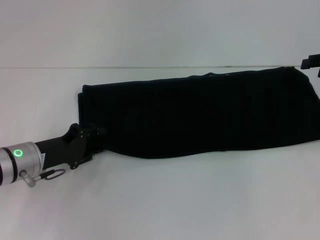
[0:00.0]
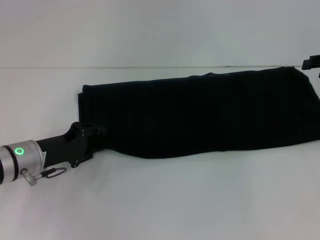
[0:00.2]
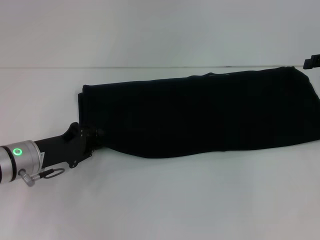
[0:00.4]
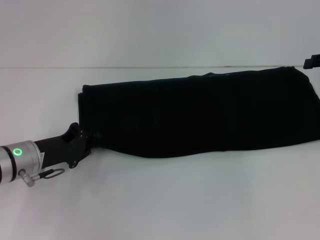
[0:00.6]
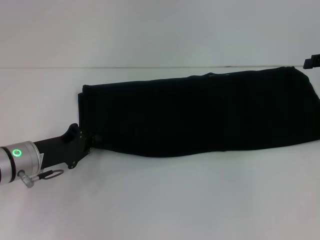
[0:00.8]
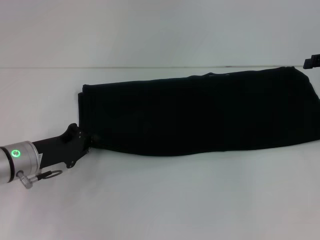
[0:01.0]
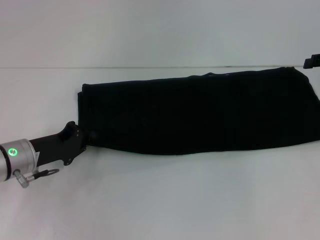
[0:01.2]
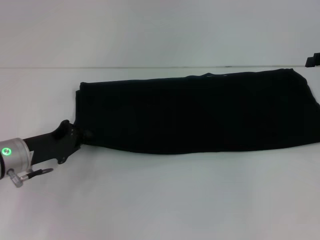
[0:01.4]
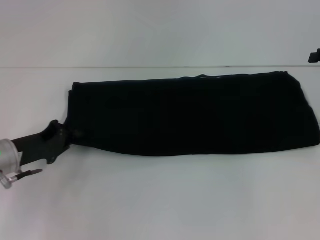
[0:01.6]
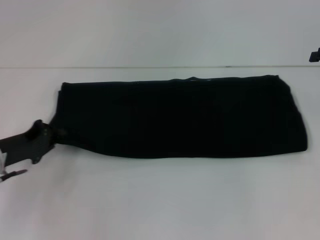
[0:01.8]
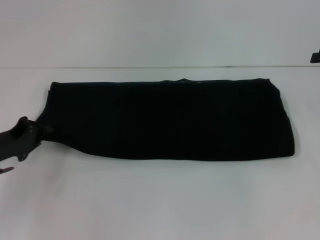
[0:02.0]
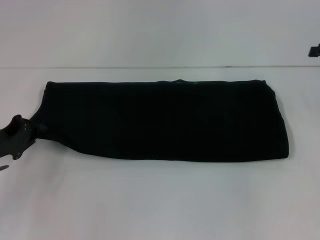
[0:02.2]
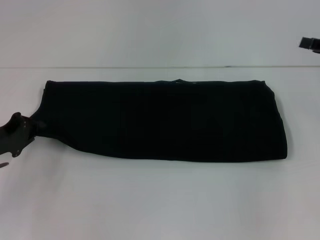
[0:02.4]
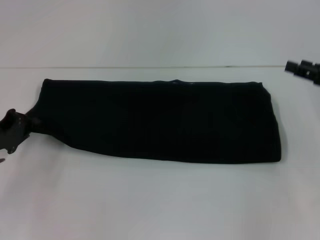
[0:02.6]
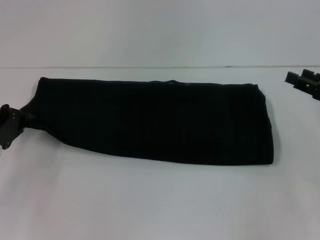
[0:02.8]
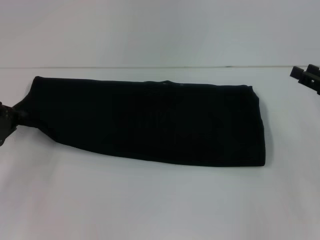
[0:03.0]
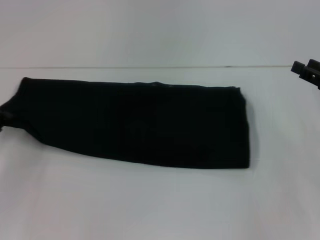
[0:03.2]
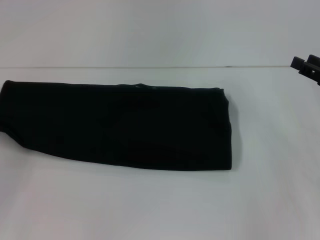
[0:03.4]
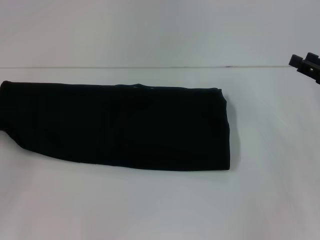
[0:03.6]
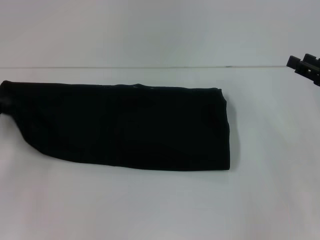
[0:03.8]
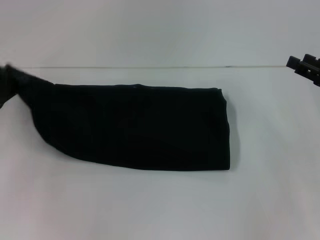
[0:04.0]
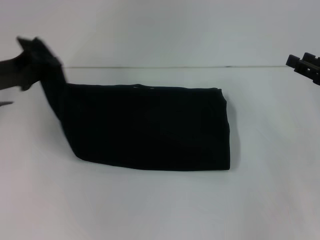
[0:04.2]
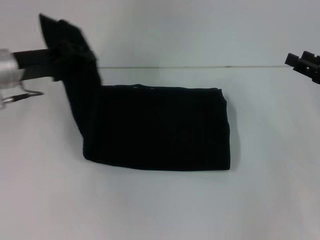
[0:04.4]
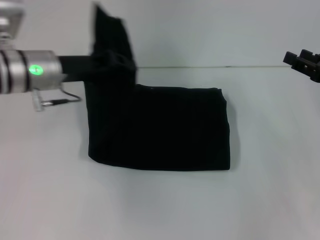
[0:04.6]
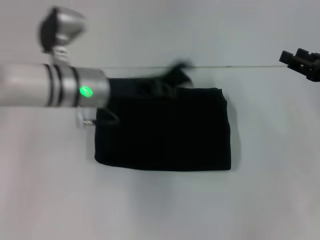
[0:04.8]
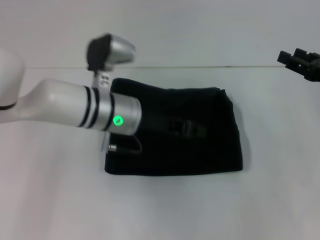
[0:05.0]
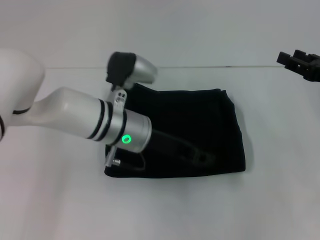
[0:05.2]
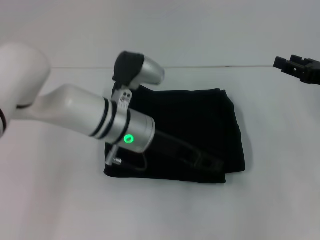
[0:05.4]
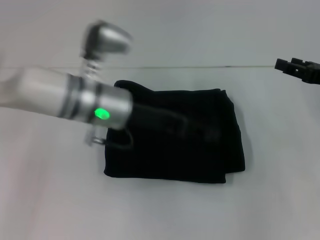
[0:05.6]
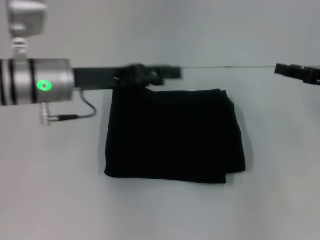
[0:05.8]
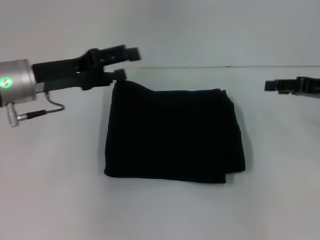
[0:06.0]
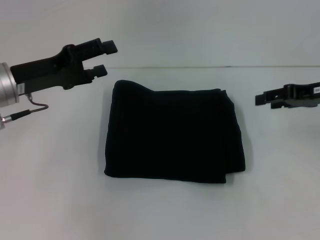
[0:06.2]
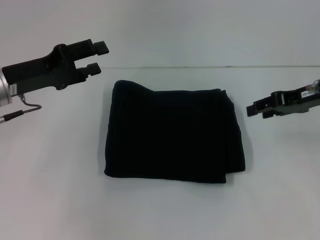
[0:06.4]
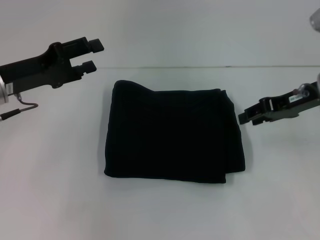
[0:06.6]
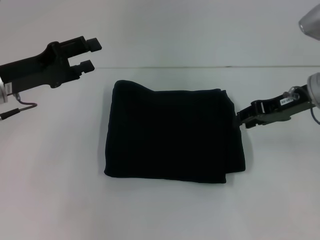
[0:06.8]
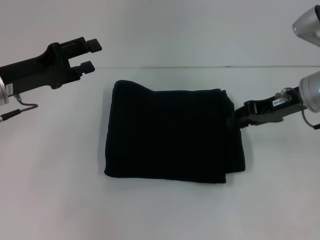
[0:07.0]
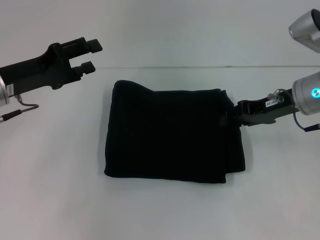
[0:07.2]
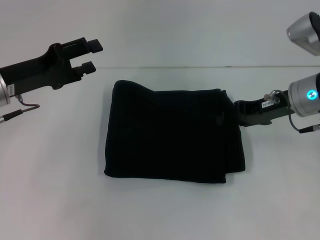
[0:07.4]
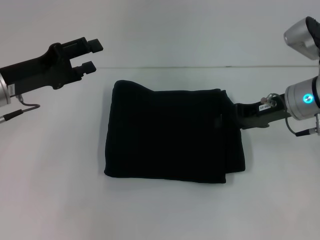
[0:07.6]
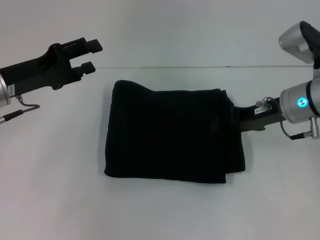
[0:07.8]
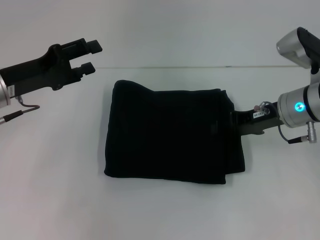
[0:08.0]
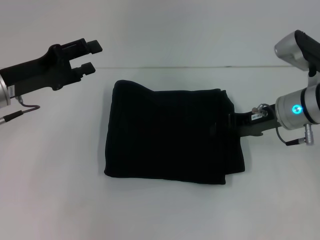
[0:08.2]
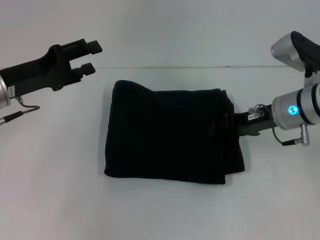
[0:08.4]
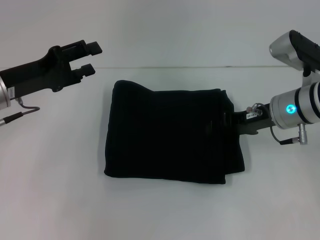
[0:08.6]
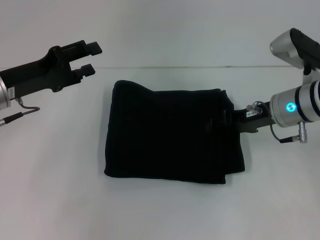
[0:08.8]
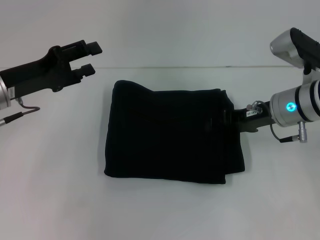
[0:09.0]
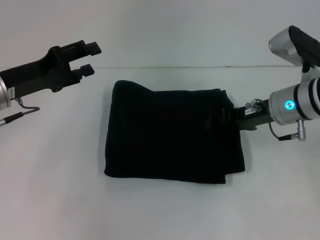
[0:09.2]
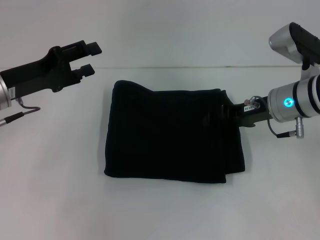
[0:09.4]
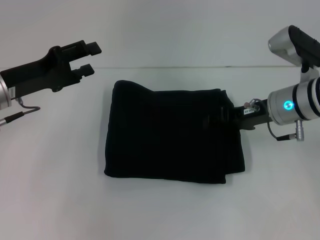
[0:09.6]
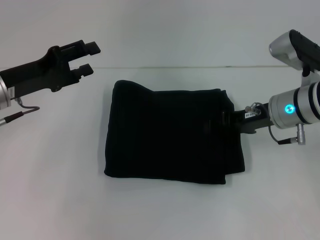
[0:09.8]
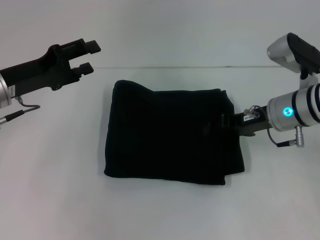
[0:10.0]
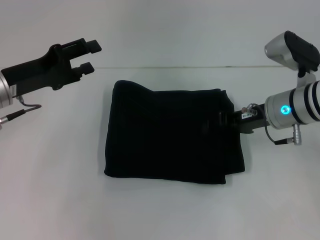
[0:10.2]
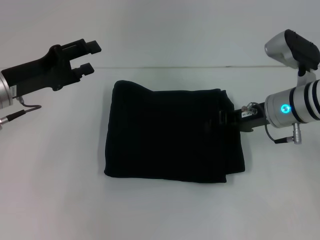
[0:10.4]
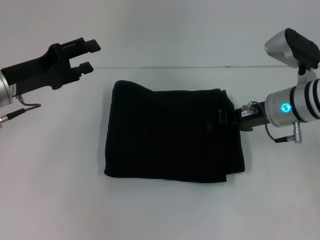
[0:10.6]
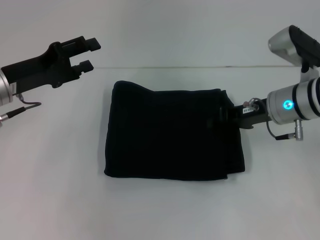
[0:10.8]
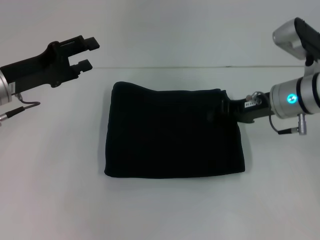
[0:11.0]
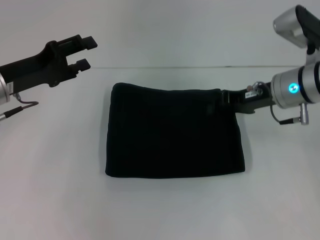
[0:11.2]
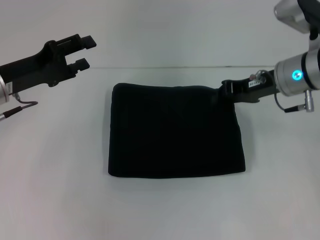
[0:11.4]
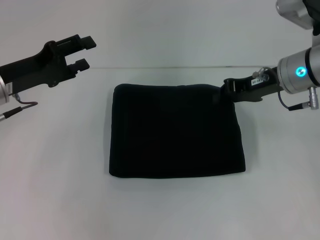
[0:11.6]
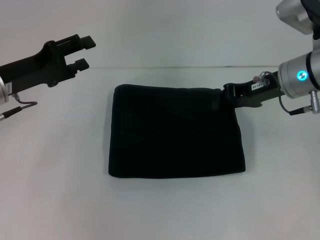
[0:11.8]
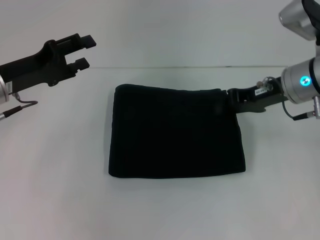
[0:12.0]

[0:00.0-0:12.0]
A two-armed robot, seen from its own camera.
Step, 0.0 to 7.2 s: Fold the clothes with your left hand.
0.0 to 1.6 s: The left gripper closes up.
1.6 to 3.0 s: The right gripper is displaced backward and downward by approximately 10 cm. Meanwhile the left gripper heads to the left, covering about 5 cm.
3.0 to 4.4 s: The left gripper moves upward, to the right and forward, roughly 15 cm.
4.4 to 6.0 s: The left gripper goes to the right and returns, roughly 20 cm each way, and opens up.
6.0 to 7.6 s: The right gripper shifts about 10 cm to the left.
7.6 to 9.0 s: The grippers move only a little.
9.0 to 10.4 s: Neither gripper changes place.
10.4 to 12.0 s: The right gripper changes place by approximately 5 cm.

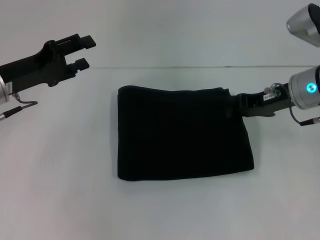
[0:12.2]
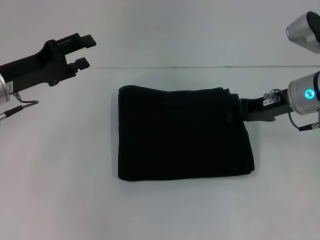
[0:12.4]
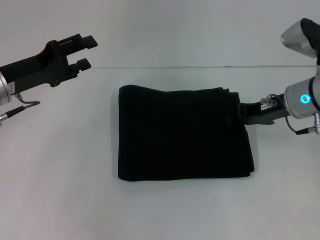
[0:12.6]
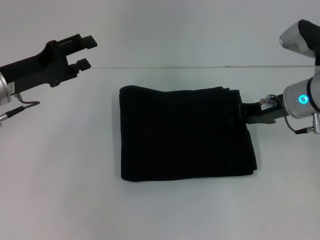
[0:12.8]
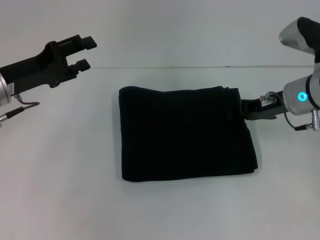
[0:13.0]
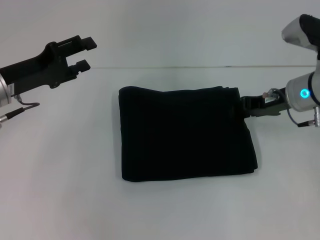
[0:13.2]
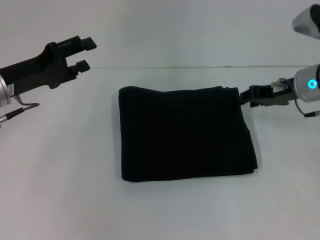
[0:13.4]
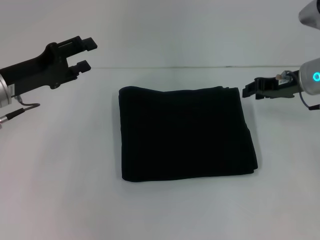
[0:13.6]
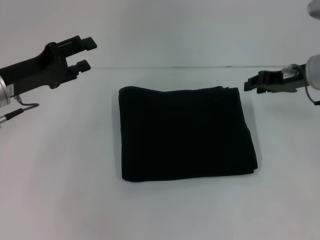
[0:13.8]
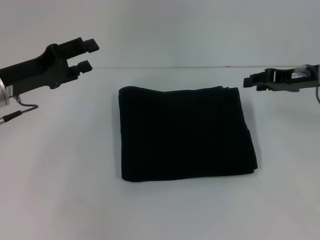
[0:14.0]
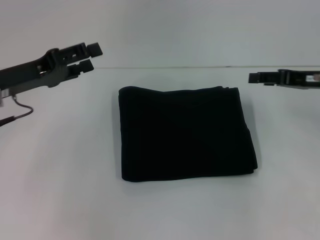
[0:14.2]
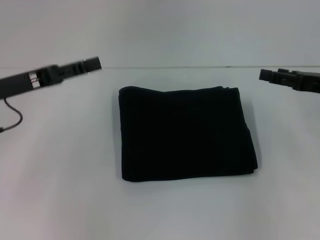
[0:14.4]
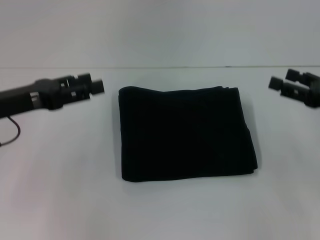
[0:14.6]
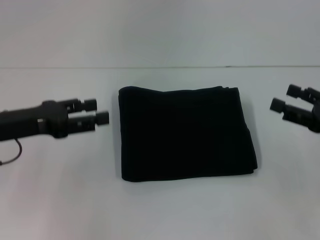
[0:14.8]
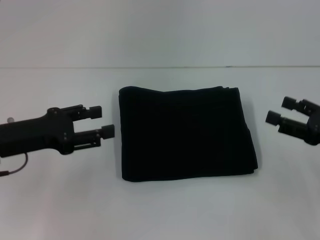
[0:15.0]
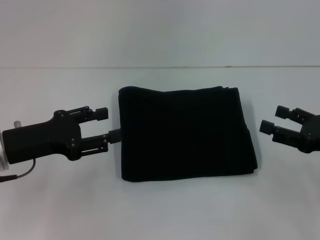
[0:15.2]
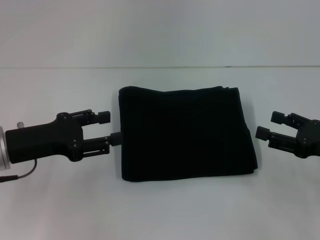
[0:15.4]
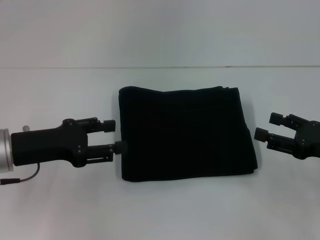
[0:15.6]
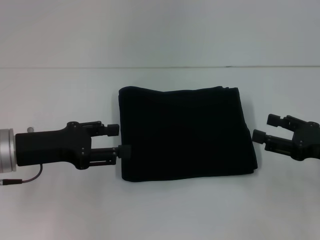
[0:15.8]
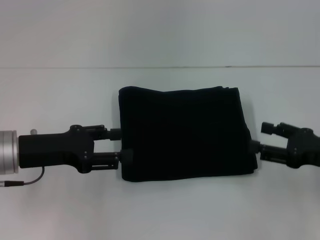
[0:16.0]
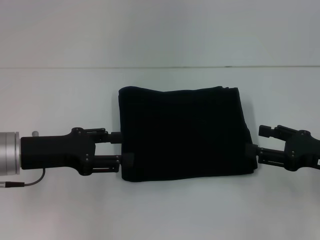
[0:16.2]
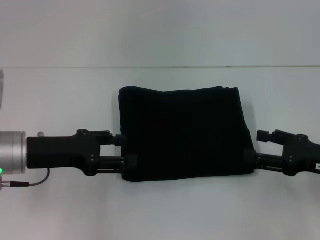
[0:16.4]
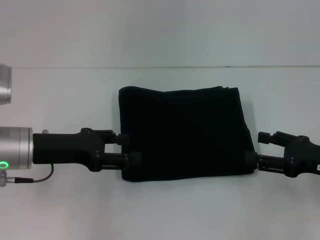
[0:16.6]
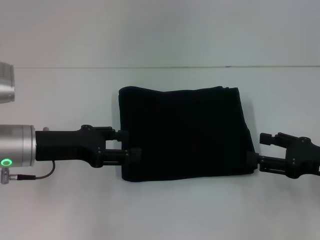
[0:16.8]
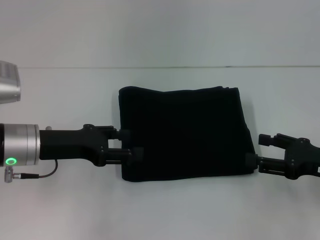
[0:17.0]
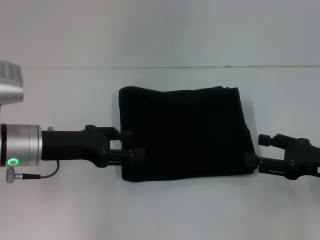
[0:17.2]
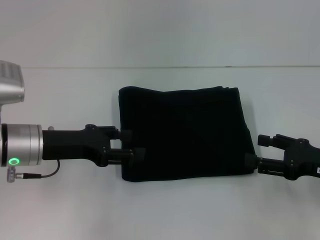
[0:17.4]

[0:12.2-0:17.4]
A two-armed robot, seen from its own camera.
12.2 to 14.0 s: The right gripper opens its fingers.
14.0 to 15.6 s: The left gripper is displaced backward by about 5 cm. Meanwhile the right gripper heads backward and downward, covering some 15 cm, and opens its fingers.
15.6 to 17.4 s: The grippers stay close to where they were, moving slightly.

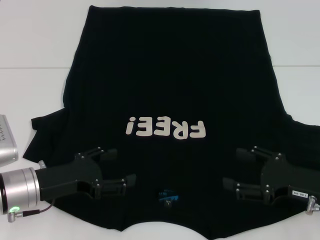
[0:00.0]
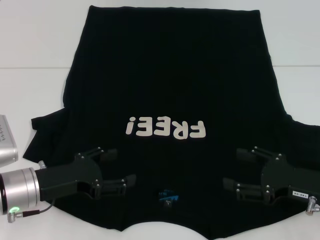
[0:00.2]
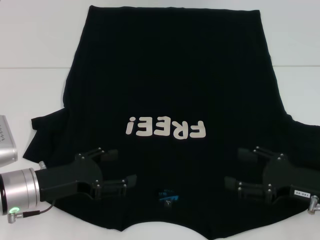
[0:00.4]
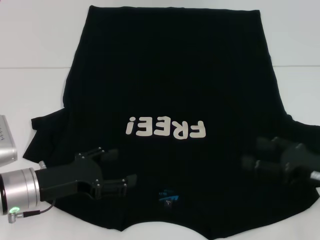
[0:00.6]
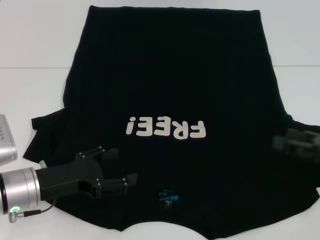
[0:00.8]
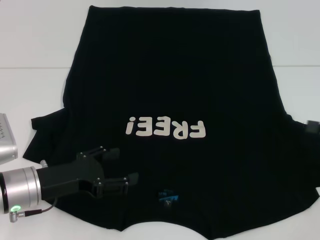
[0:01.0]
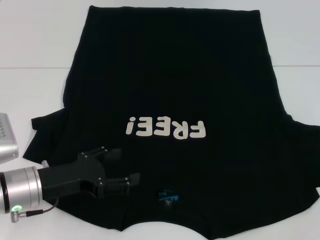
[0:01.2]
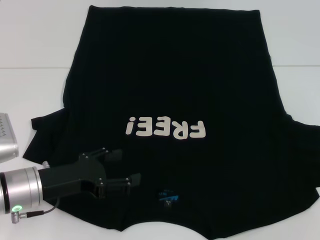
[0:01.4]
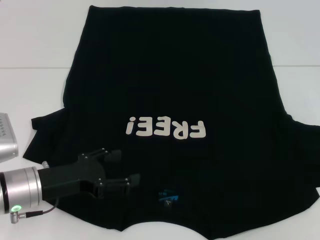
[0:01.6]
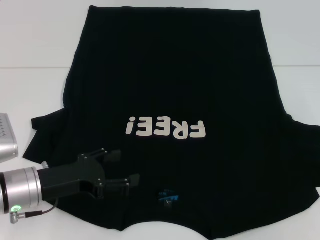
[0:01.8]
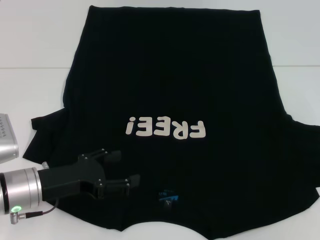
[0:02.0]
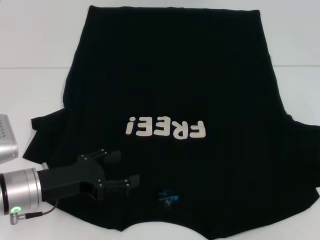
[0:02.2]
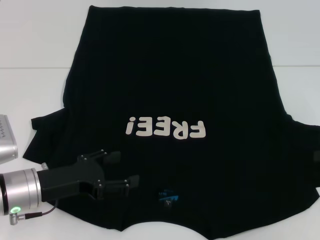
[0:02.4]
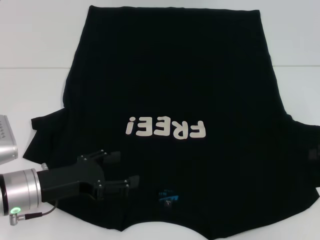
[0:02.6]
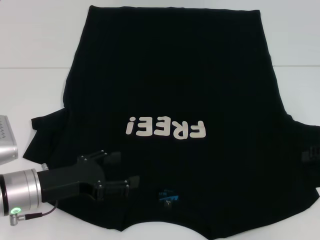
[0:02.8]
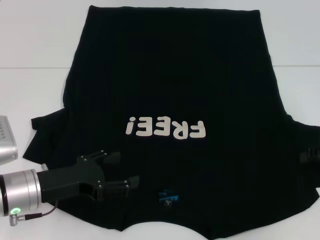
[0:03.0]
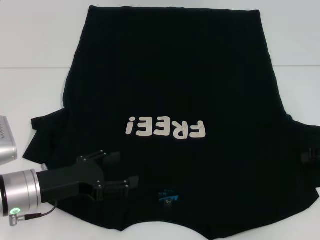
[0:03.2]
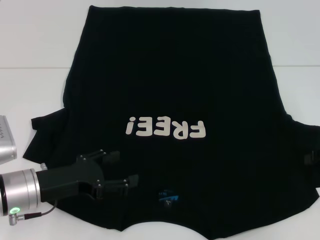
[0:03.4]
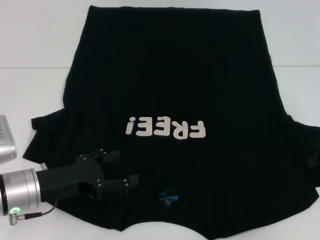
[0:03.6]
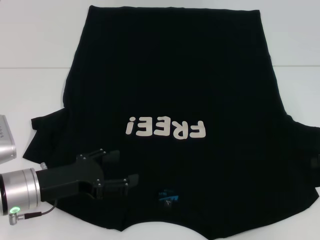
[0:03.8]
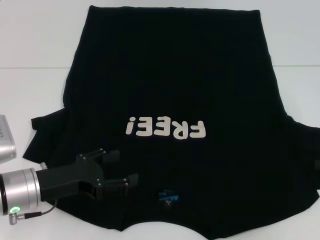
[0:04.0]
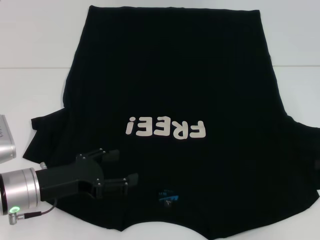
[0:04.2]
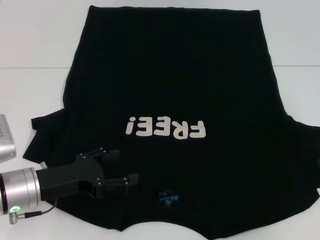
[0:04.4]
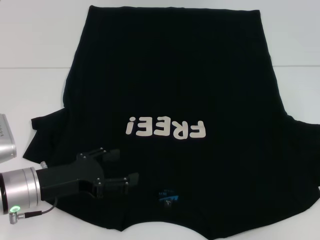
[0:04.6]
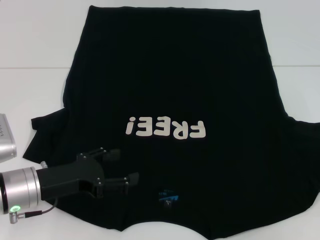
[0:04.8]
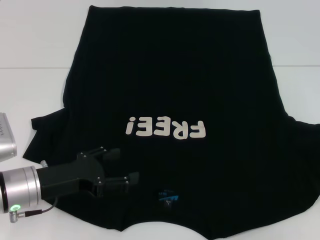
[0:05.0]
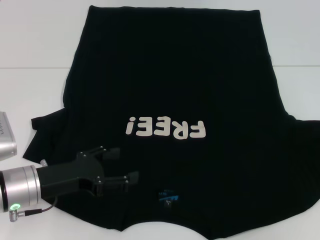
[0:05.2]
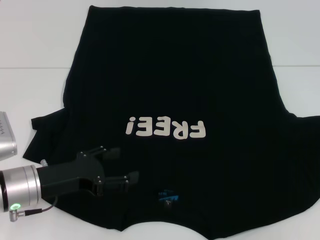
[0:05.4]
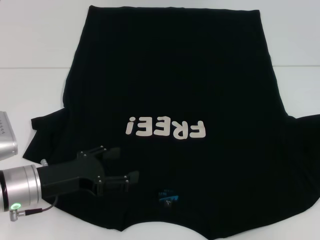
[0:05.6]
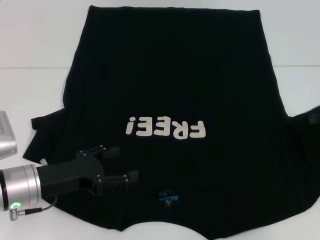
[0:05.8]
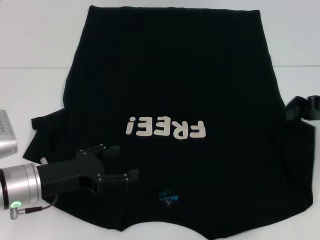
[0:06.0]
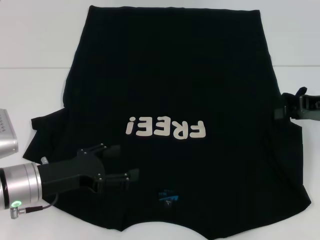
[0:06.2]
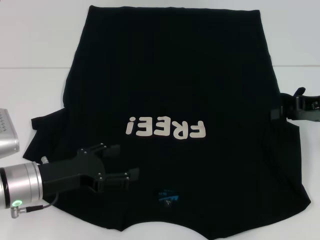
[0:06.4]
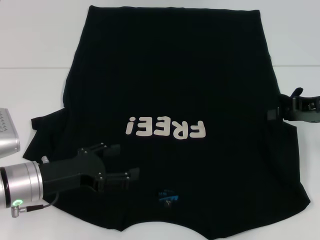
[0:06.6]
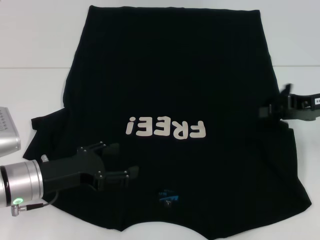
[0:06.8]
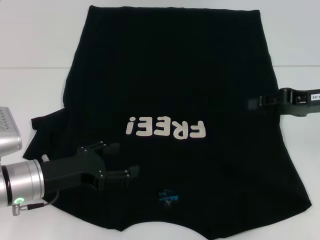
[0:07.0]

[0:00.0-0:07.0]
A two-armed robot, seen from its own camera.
0.0 to 1.4 s: The right gripper travels to the right and upward by about 15 cm.
5.6 to 7.0 s: The right gripper shifts some 10 cm to the left.
